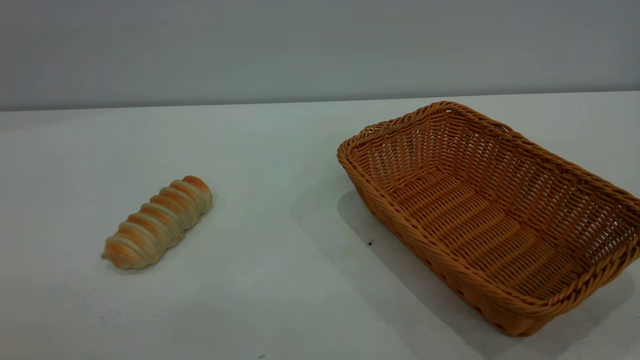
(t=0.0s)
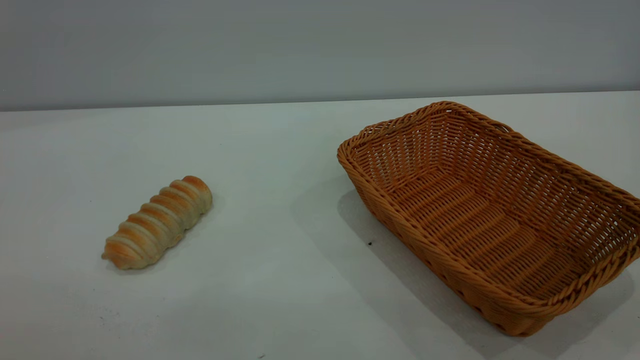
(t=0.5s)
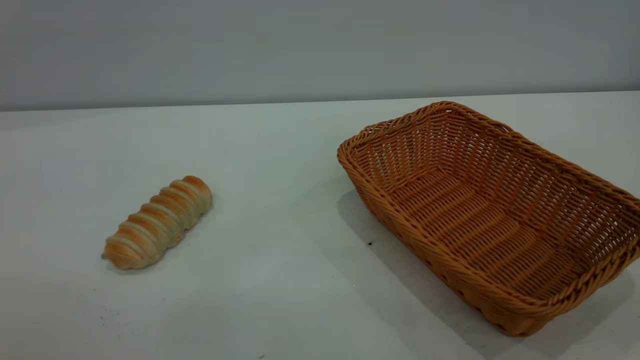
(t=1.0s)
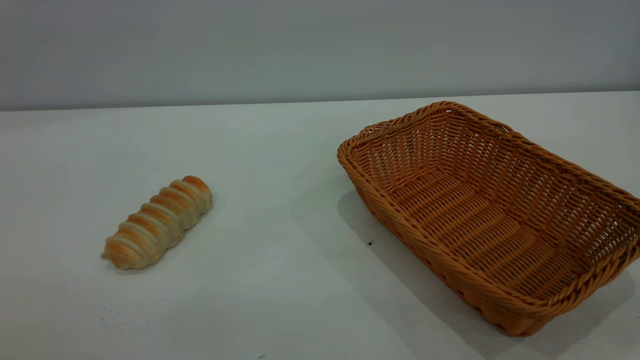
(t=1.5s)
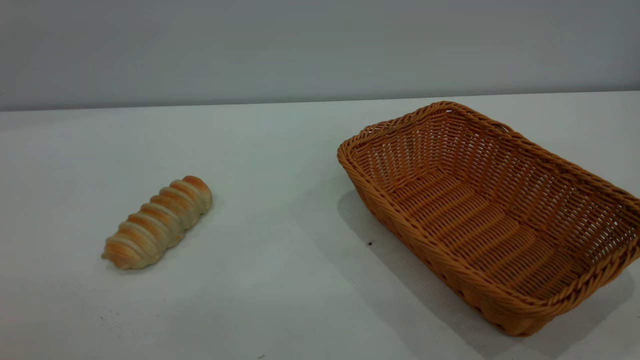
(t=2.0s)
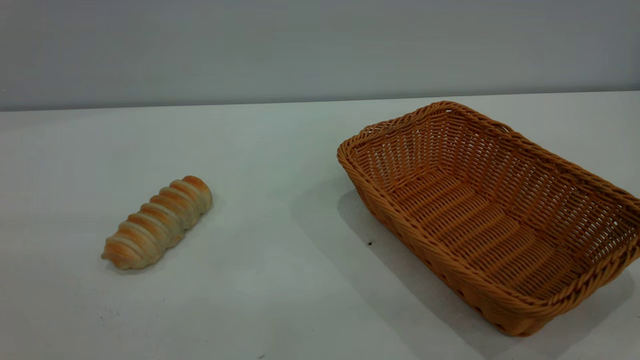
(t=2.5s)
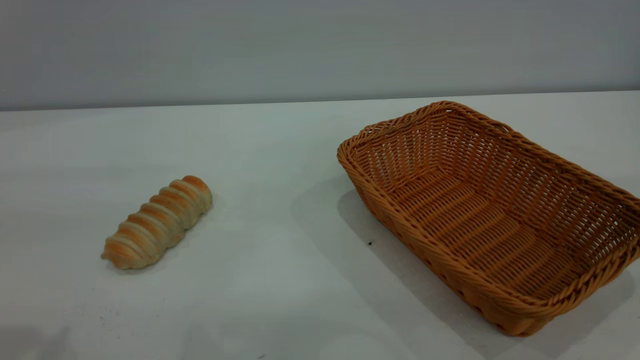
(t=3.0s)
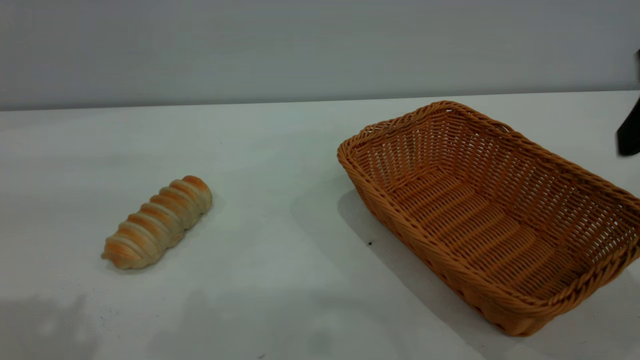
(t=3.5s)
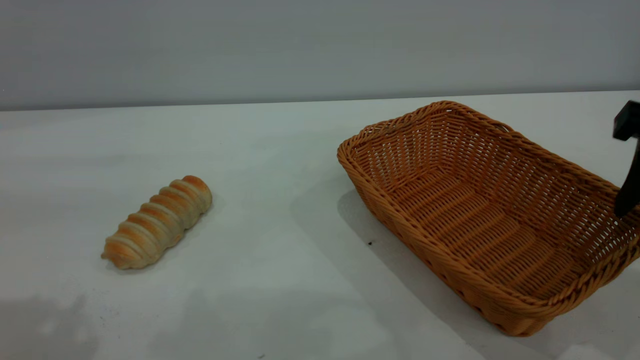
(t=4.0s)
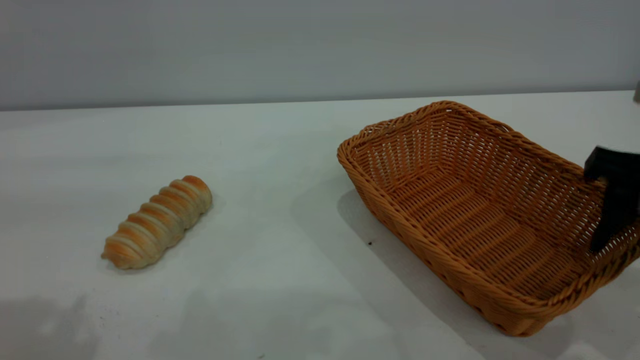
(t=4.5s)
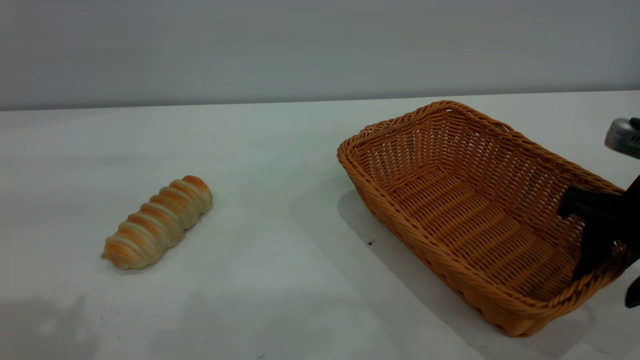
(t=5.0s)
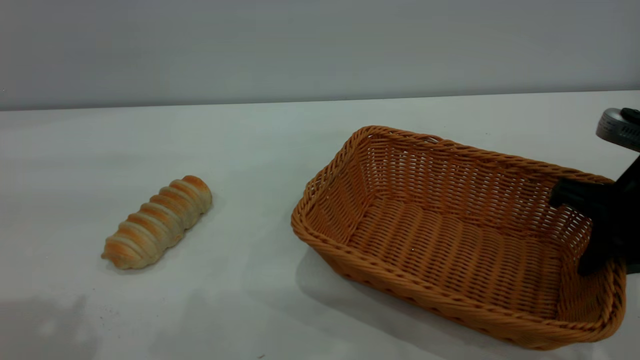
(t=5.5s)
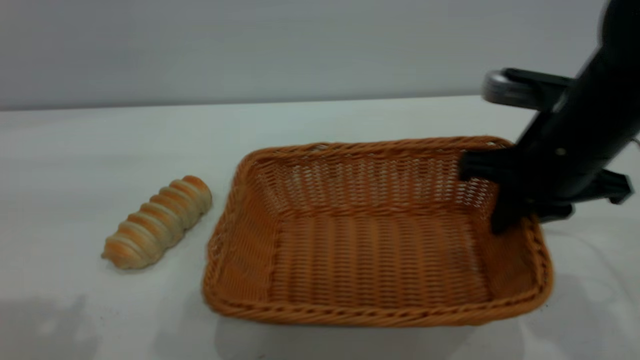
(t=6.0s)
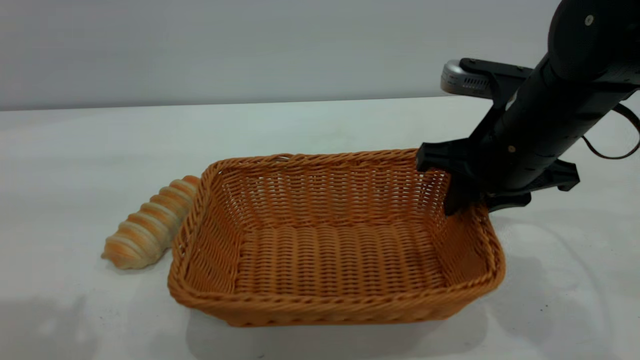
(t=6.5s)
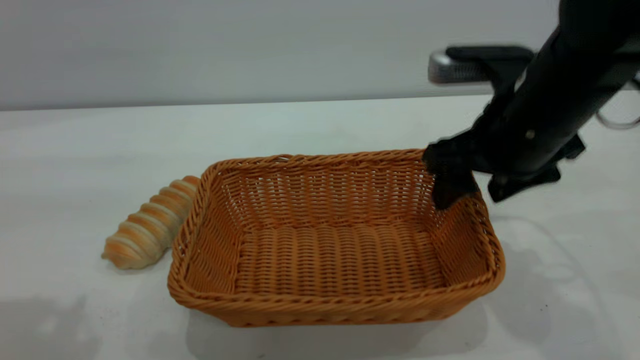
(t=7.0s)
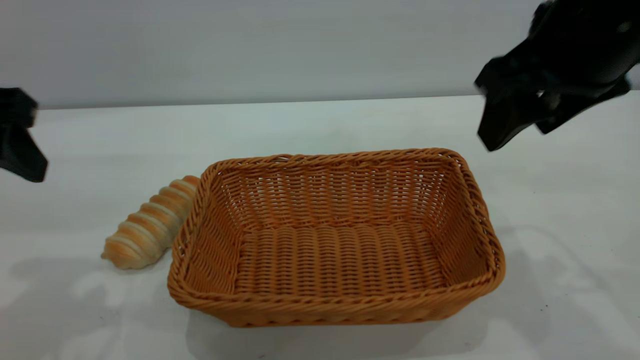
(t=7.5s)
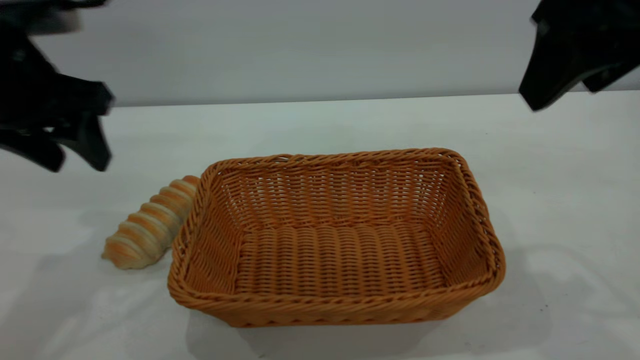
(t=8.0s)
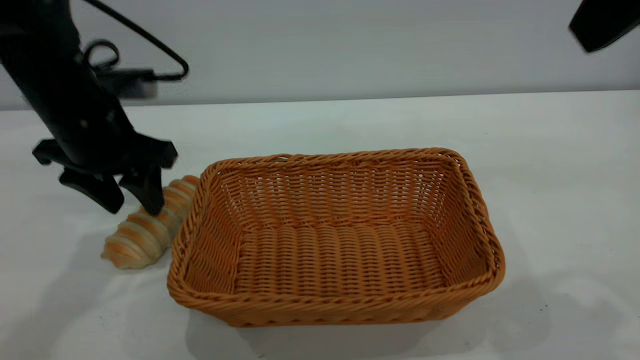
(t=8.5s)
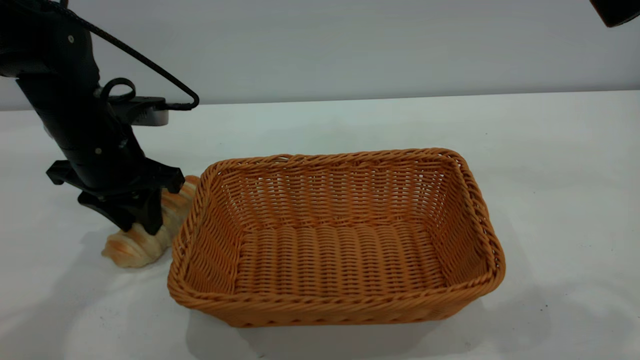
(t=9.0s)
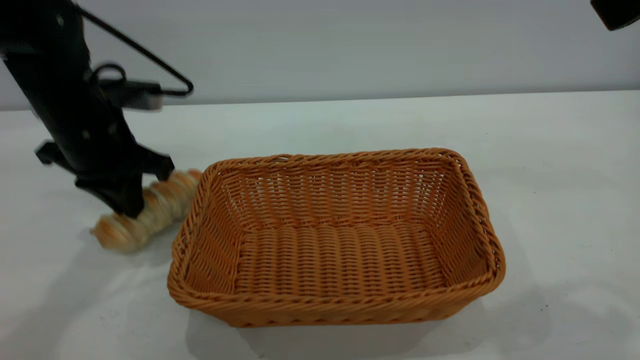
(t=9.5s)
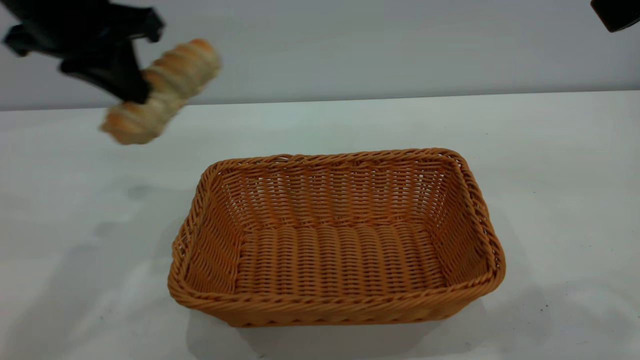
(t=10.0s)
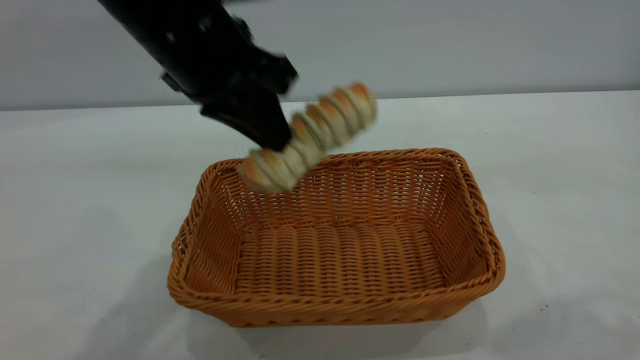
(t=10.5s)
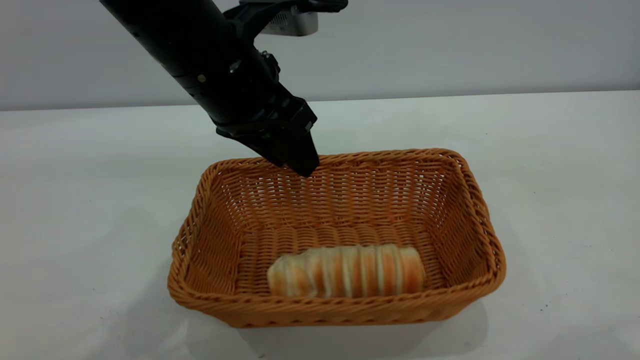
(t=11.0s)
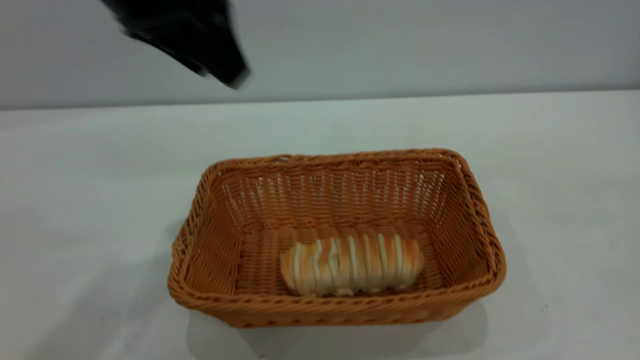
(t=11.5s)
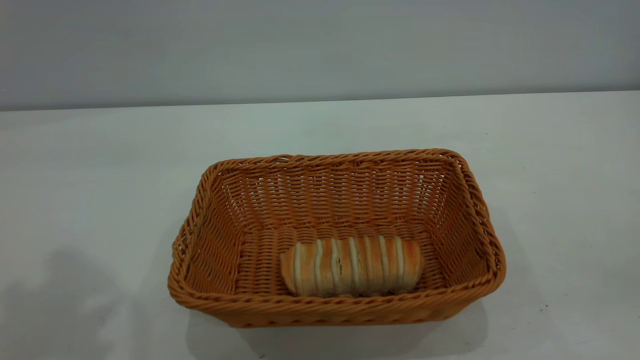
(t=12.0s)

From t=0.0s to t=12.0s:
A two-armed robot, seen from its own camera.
Task of the whole recording: One hand grasps the yellow basket and places it in the middle of the table, while the other hand picks up the long bread and puts it into the yellow basket.
Step, from t=0.0s to t=7.0s: Move the basket to the center of view.
Step, from t=10.0s to t=11.0s: place the bread into the basket.
From t=2.0s to t=4.0s: The right gripper is displaced forward and downward by approximately 25 cm.
From t=4.0s to t=6.0s: The right gripper shifts about 10 cm to the left, forward and downward, and closes its fingers.
From t=6.0s to t=8.0s: The right gripper travels upward by approximately 15 cm, and opens; the left gripper heads forward and downward, covering roughly 15 cm.
From t=8.0s to t=10.0s: The right gripper heads upward, covering roughly 5 cm. Meanwhile the left gripper goes downward and returns, approximately 10 cm each way, and closes up.
From t=10.0s to t=12.0s: The right gripper shifts about 15 cm backward and to the right, while the left gripper shifts roughly 20 cm upward and backward, and opens its fingers.
